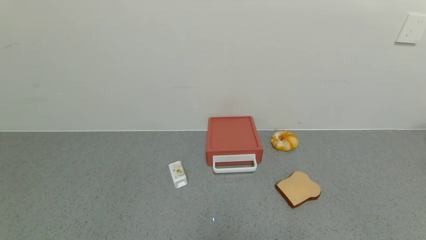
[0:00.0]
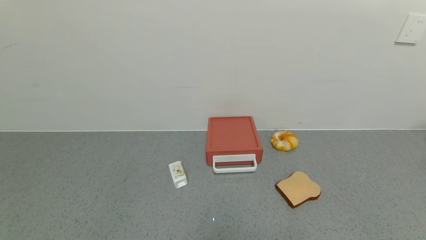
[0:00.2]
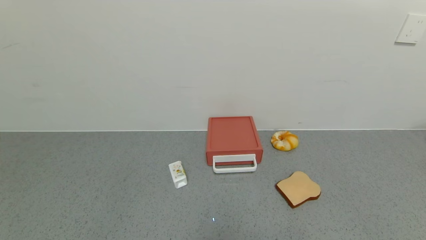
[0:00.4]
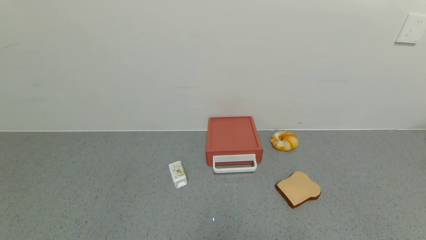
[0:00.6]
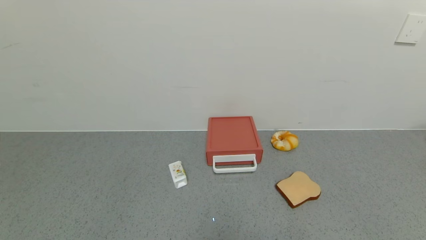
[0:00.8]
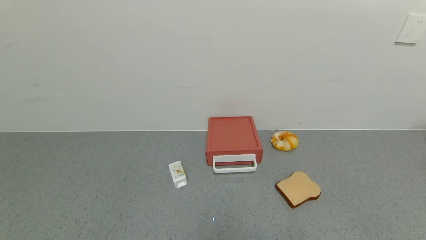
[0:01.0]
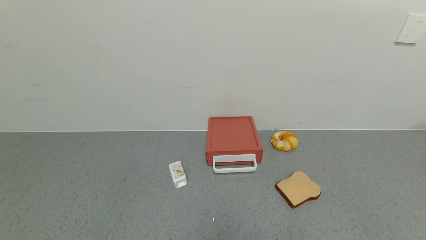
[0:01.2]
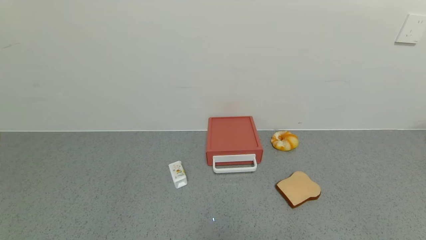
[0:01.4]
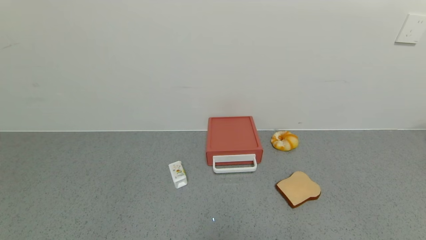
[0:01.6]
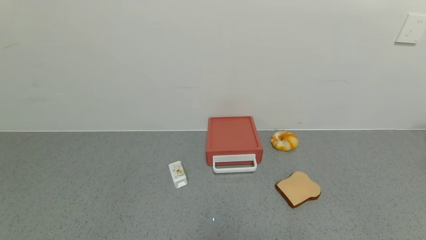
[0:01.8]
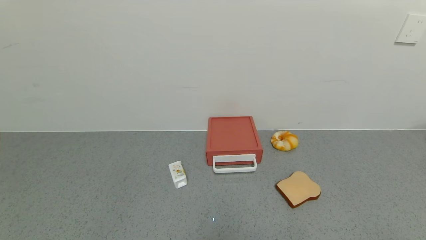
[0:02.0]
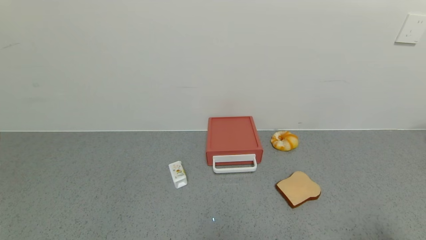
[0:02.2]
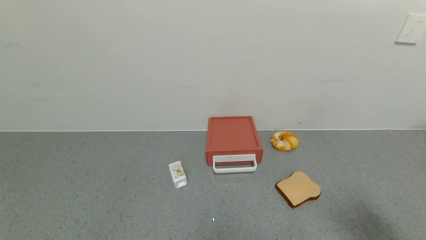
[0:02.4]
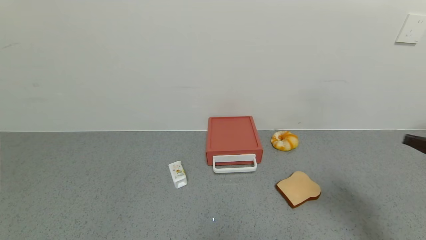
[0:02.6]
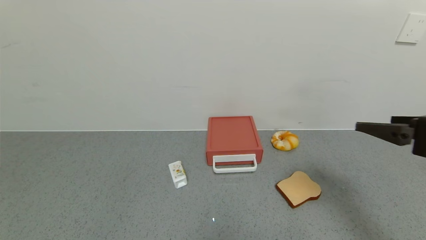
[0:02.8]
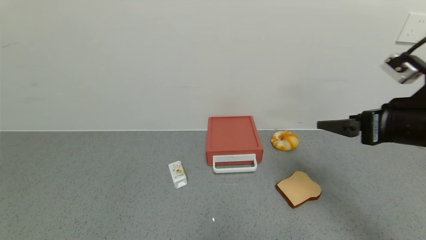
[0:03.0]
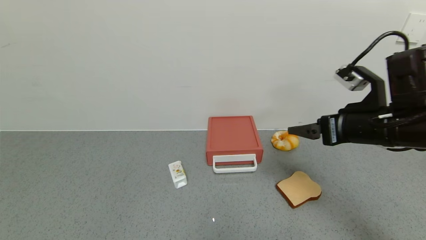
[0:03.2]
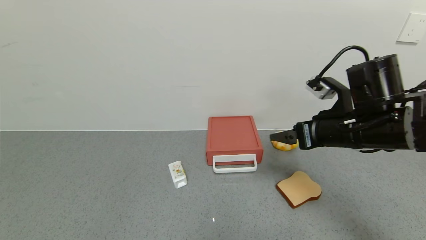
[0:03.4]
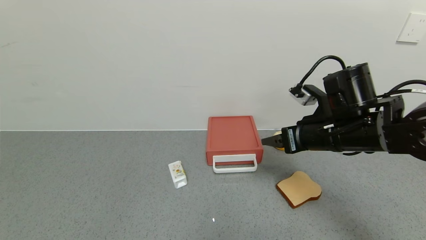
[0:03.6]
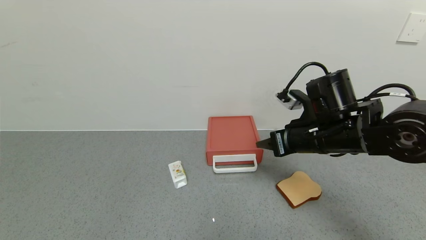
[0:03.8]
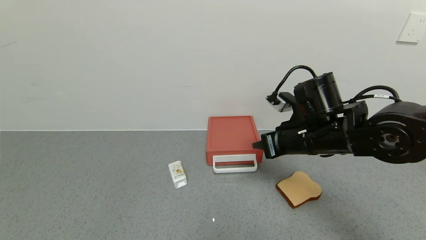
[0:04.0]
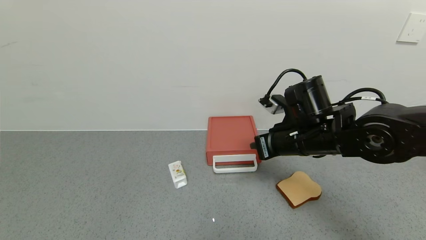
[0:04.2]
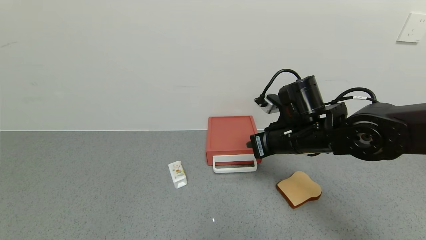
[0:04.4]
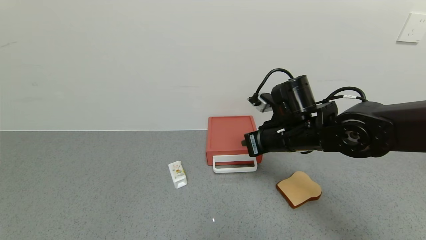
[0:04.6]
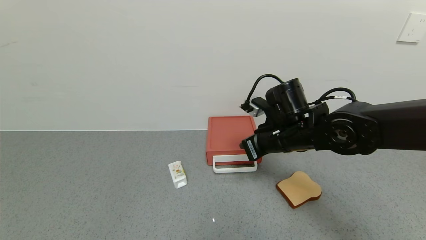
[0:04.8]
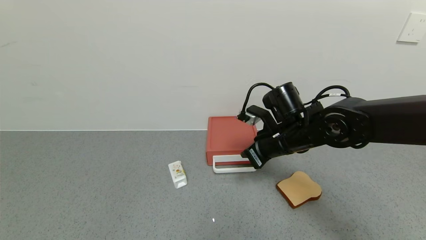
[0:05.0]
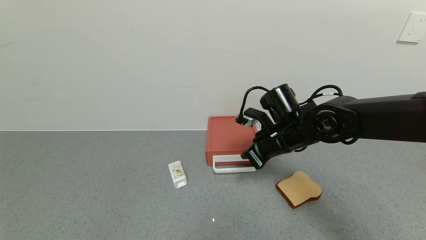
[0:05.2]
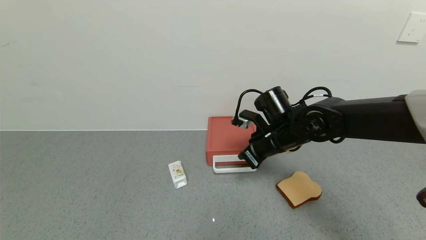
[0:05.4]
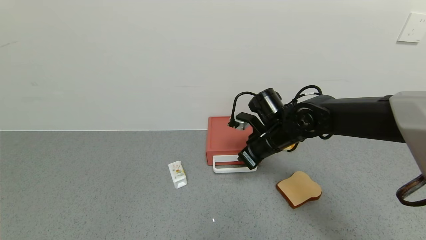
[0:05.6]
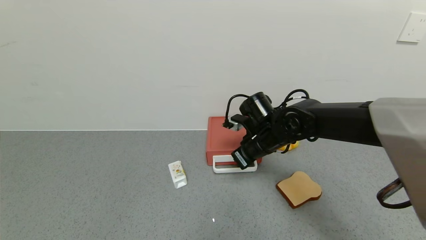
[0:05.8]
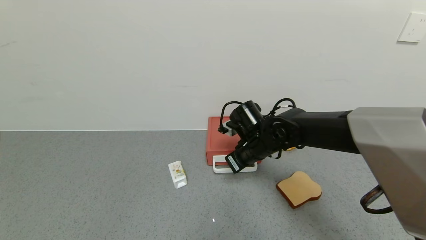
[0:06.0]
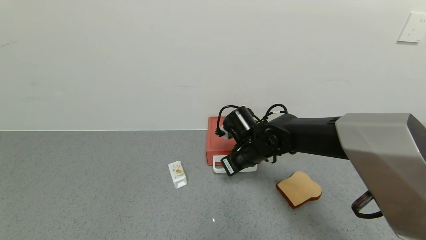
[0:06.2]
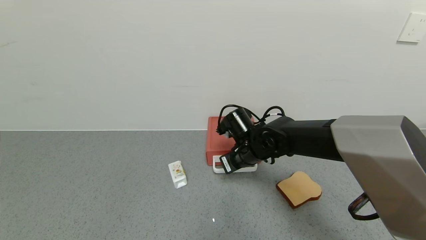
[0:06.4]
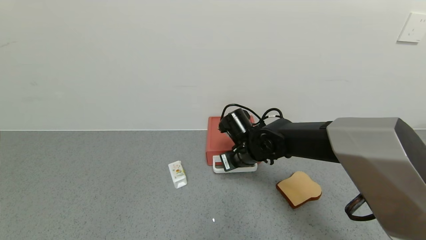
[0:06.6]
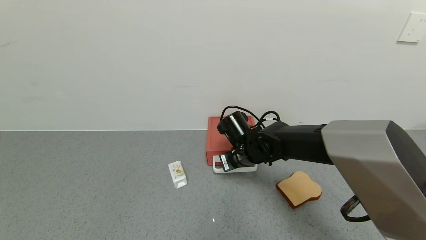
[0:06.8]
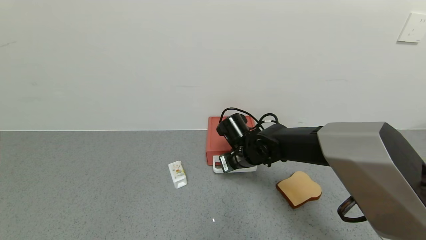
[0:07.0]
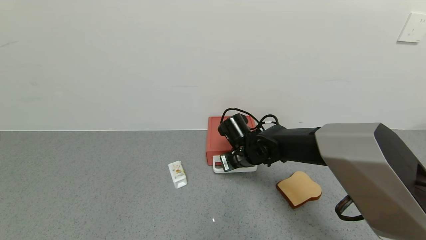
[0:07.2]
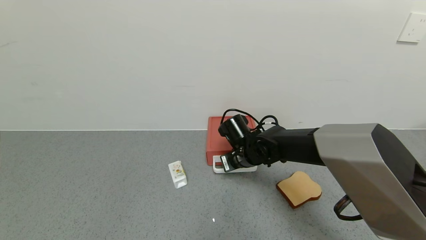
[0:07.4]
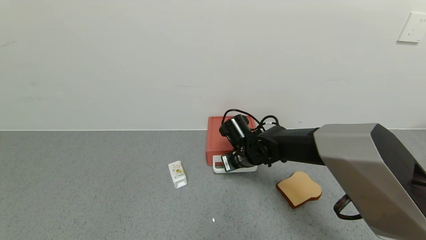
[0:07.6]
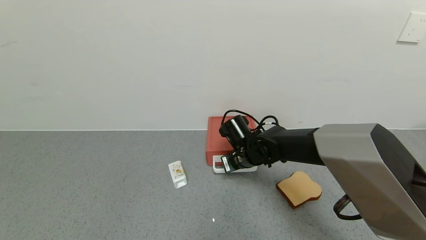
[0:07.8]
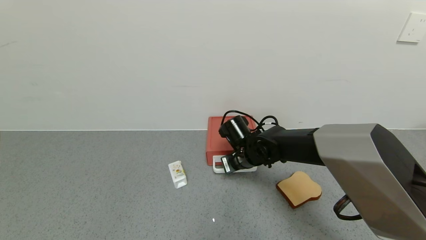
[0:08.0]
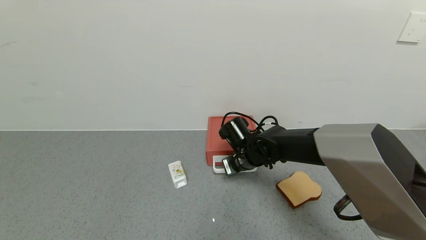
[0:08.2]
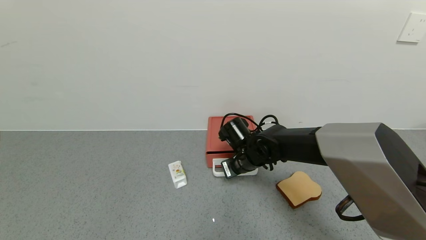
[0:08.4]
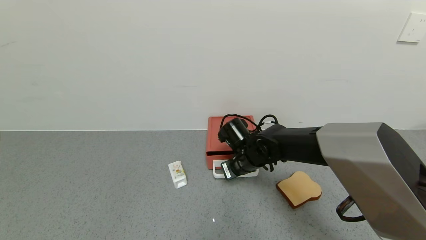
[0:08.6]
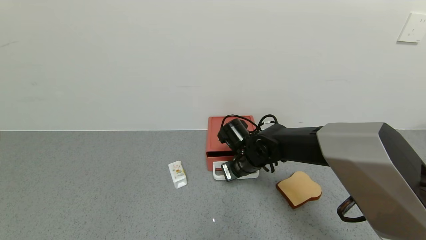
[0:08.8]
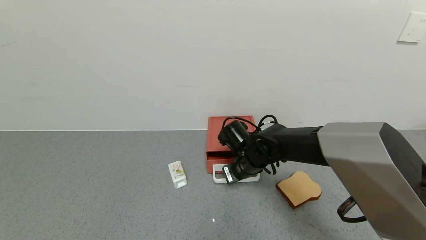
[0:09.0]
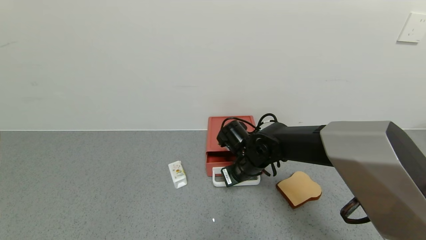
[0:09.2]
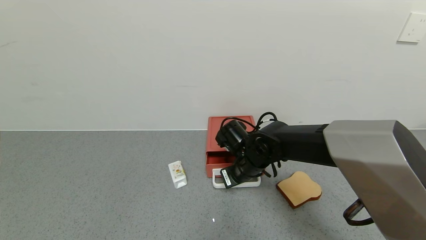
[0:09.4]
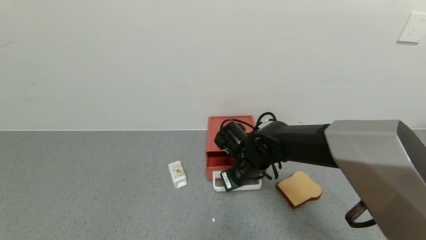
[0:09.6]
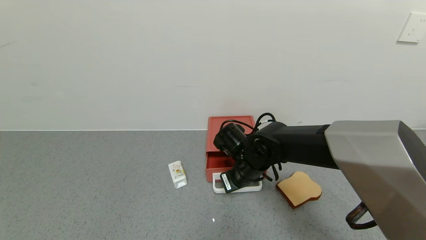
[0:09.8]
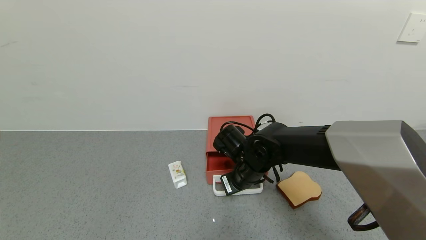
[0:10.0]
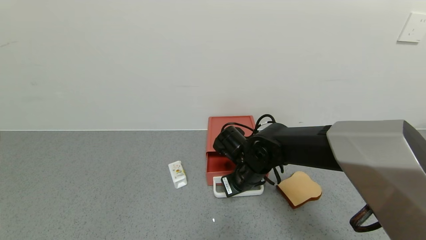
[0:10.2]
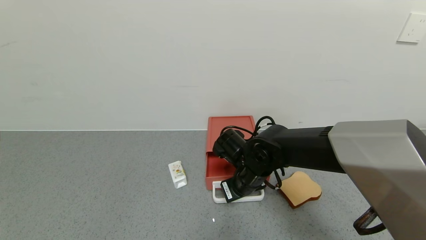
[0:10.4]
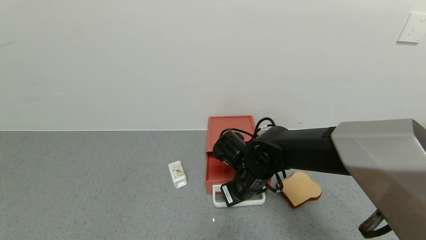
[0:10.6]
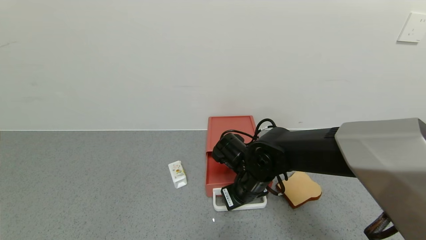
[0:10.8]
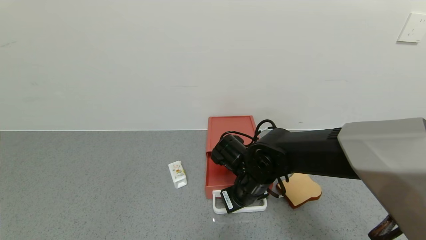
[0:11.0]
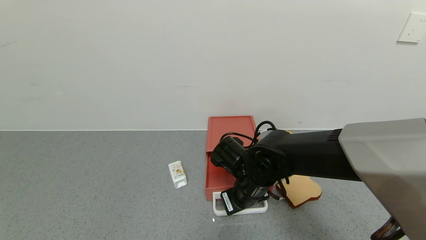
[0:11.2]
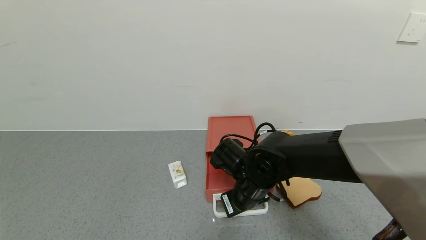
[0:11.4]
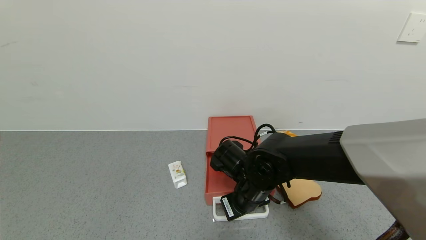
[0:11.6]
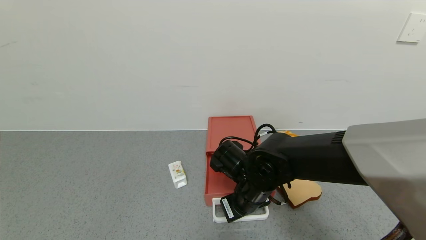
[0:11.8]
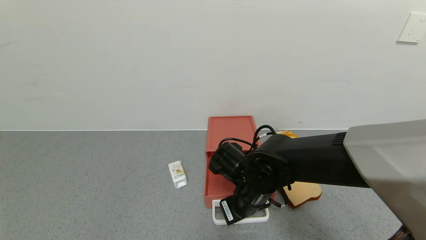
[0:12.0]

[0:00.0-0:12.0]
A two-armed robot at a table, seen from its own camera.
Task of the whole recording: use the gripper to open the drawer and close the red drawer.
1.6 to 3.0 s: The right gripper heads forward and upward, covering roughly 30 cm.
3.0 to 4.4 s: The right gripper goes about 20 cm to the left, forward and downward, and closes up.
4.4 to 6.0 s: The right gripper travels downward, to the left and forward by roughly 10 cm.
6.0 to 9.0 s: The grippers make only small movements.
9.0 to 10.4 s: The grippers move only a little.
10.4 to 12.0 s: There are only small adjustments of the grippers.

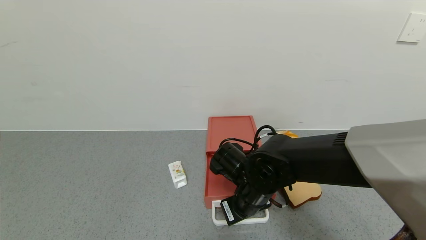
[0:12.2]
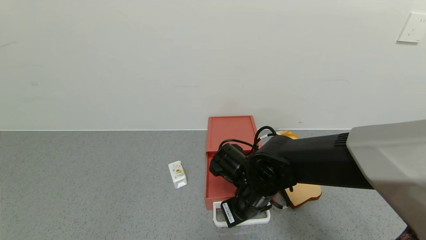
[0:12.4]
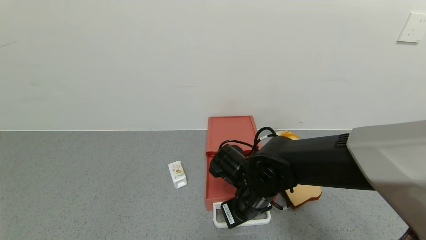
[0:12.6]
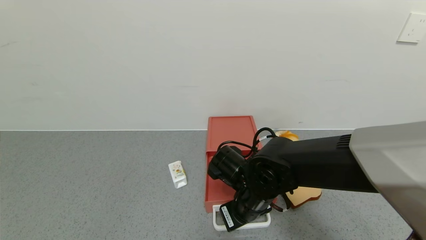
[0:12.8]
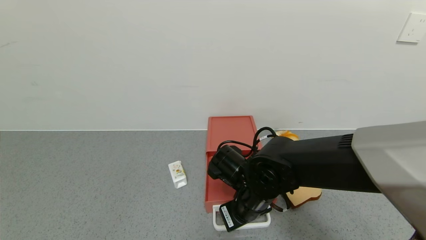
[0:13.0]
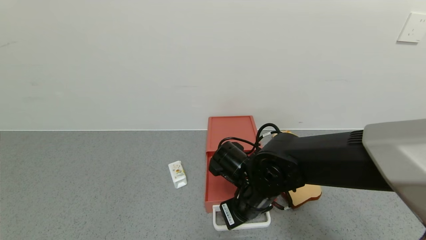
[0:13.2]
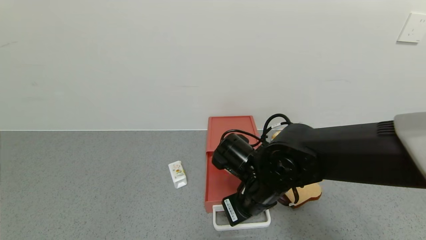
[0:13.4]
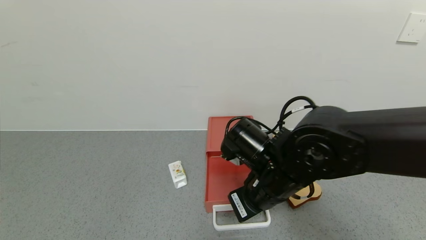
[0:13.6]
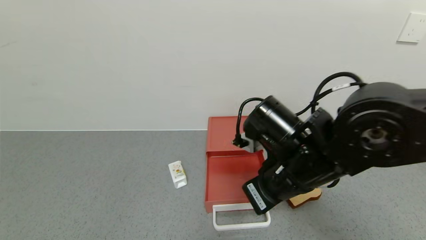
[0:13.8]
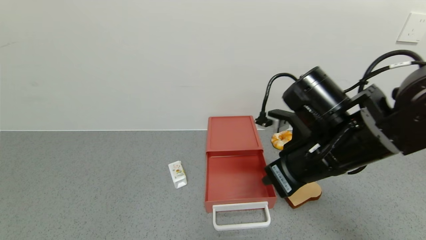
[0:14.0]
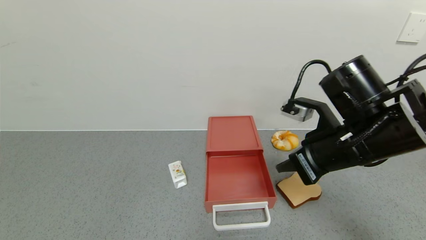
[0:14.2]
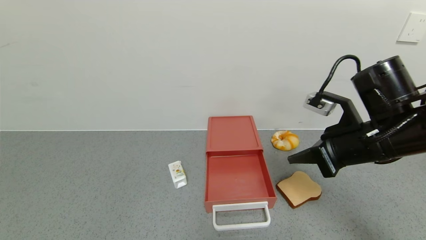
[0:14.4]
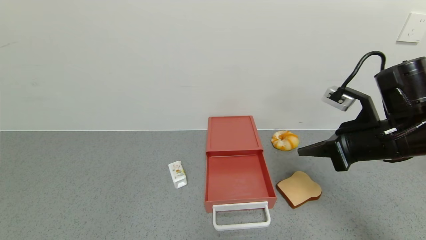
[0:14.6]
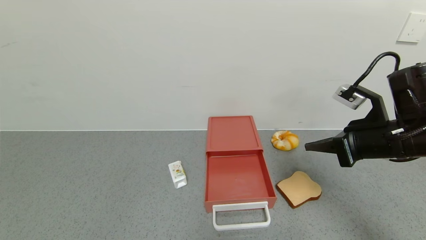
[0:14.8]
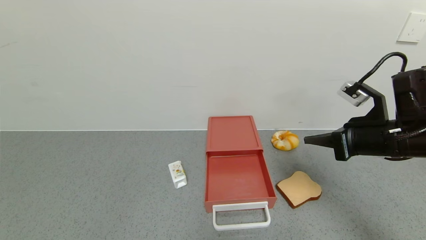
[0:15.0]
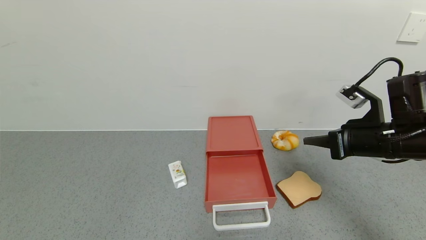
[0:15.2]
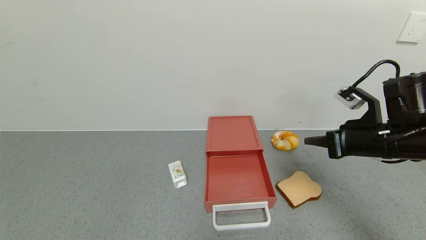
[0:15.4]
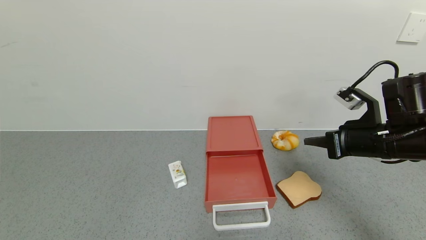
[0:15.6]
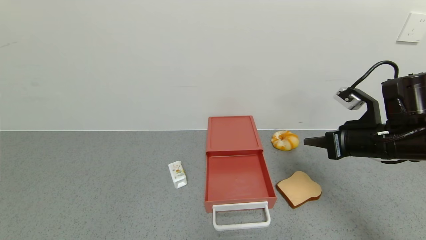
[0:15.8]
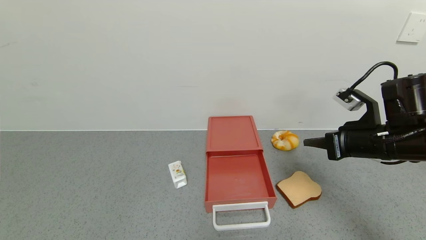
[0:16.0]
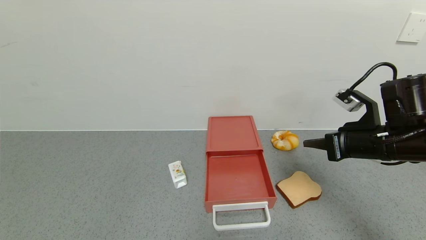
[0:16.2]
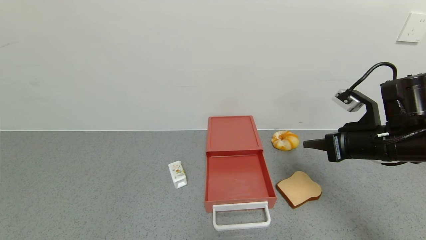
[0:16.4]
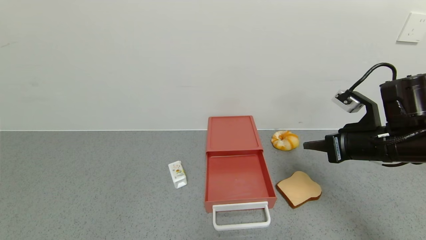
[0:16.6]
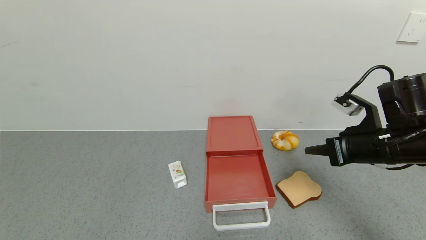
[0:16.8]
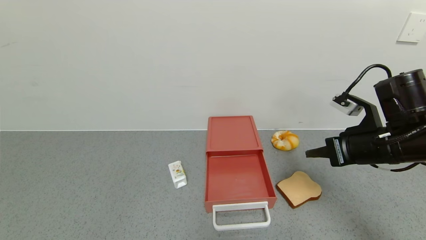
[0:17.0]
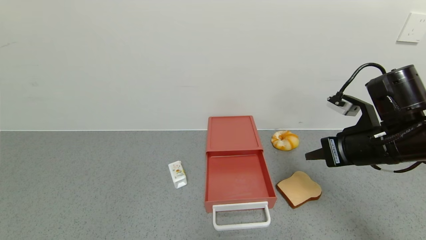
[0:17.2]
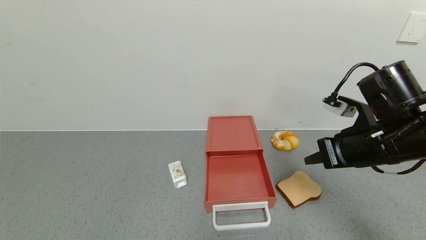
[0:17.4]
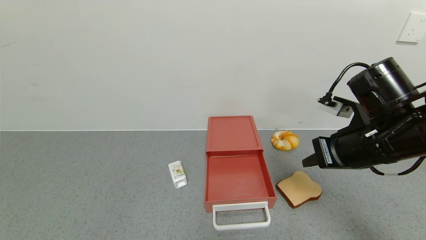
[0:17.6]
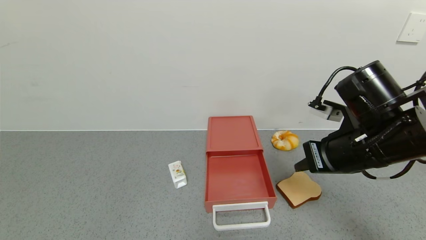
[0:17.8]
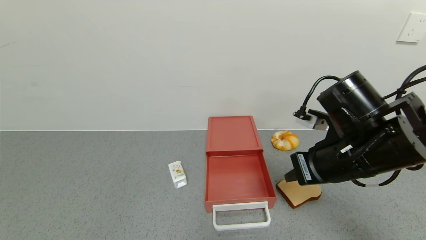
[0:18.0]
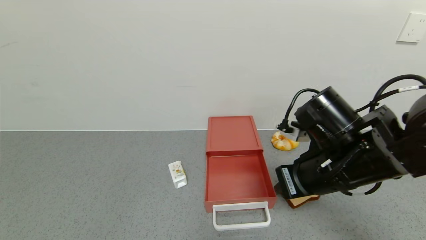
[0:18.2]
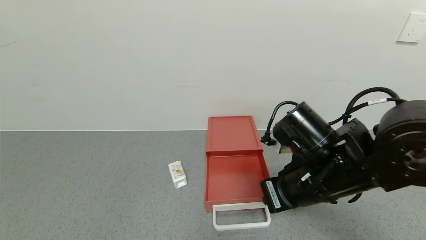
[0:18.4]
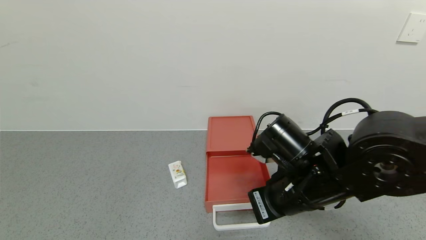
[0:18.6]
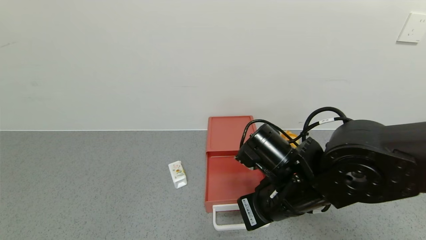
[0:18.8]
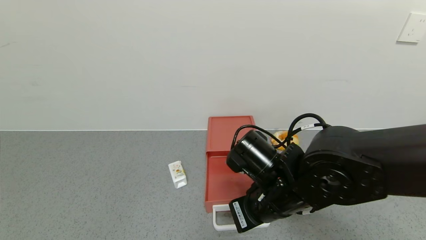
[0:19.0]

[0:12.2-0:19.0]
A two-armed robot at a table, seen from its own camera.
Task of the whole recording: use the gripper to open the drawer and close the red drawer.
12.2 to 13.6 s: The right gripper goes some 5 cm upward.
13.6 to 15.0 s: The right gripper heads to the right, covering about 20 cm.
15.0 to 16.2 s: The grippers move only a little.
16.2 to 17.6 s: The right gripper ends up approximately 5 cm from where it was.
17.6 to 19.0 s: The right gripper travels to the left and downward by roughly 15 cm.
